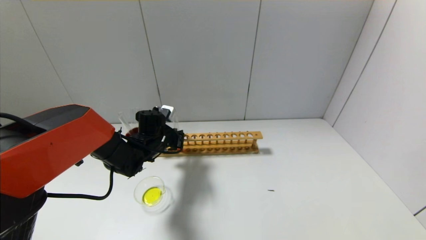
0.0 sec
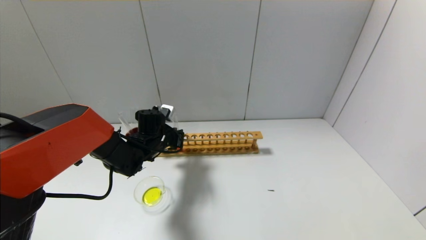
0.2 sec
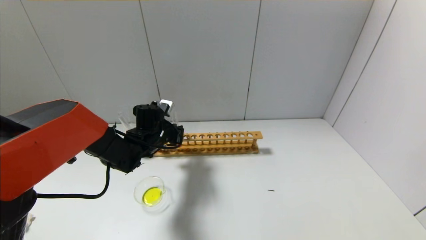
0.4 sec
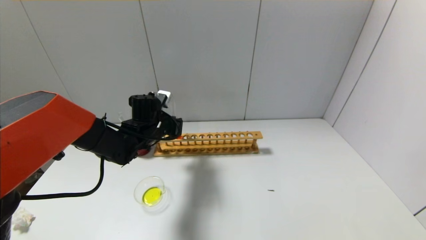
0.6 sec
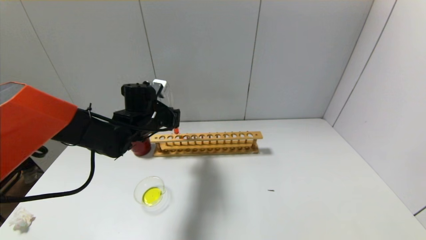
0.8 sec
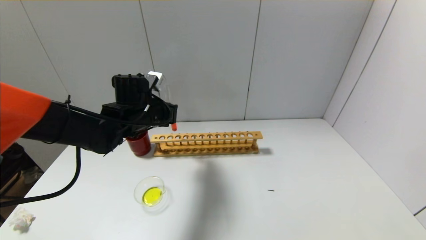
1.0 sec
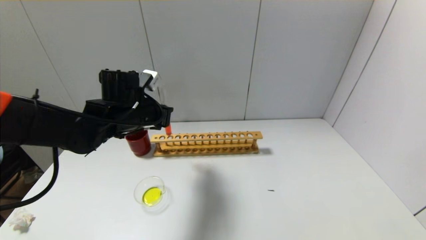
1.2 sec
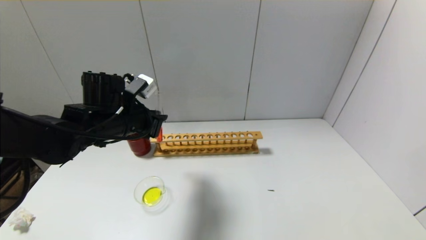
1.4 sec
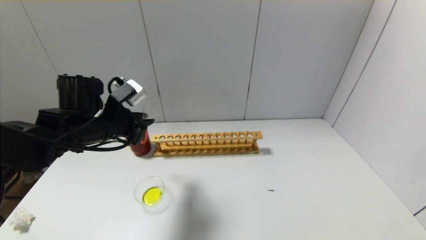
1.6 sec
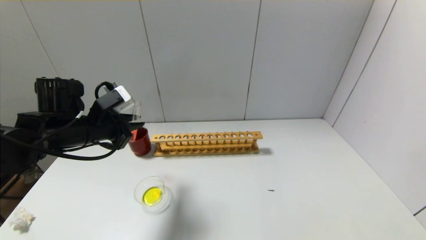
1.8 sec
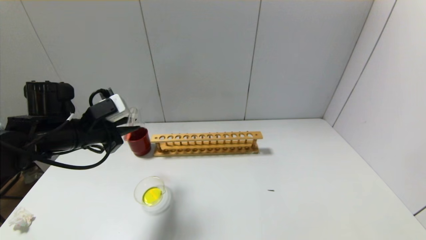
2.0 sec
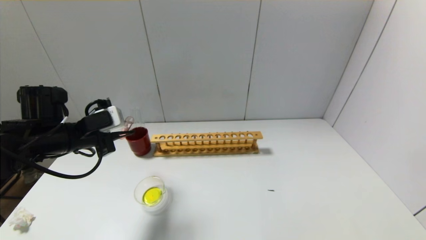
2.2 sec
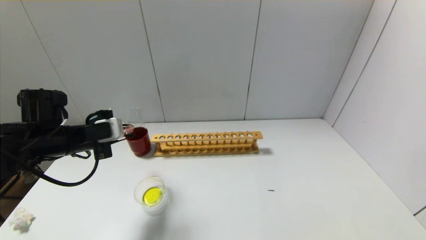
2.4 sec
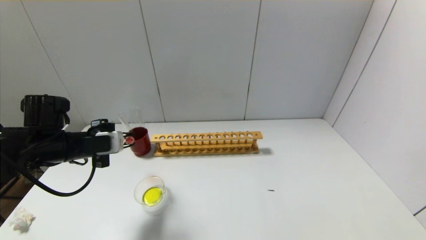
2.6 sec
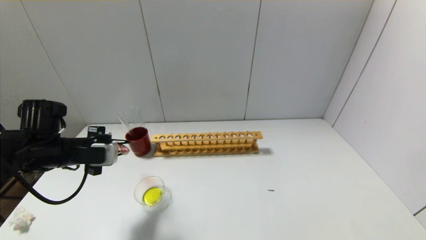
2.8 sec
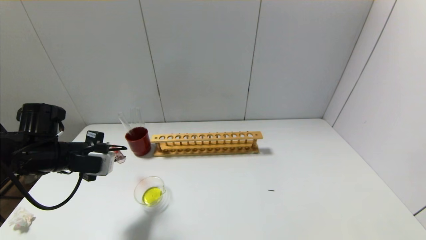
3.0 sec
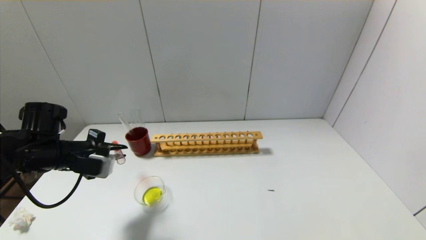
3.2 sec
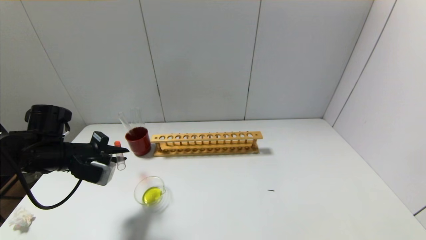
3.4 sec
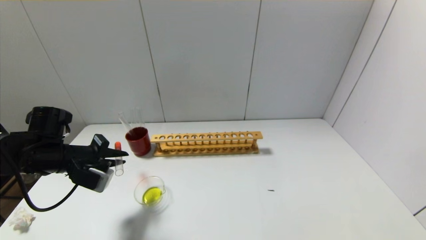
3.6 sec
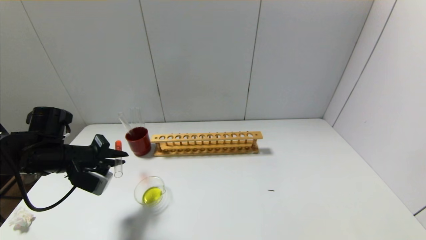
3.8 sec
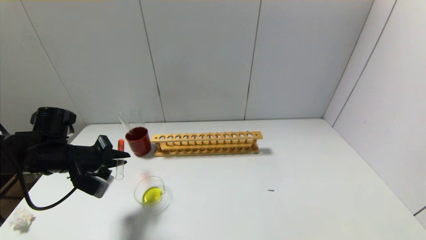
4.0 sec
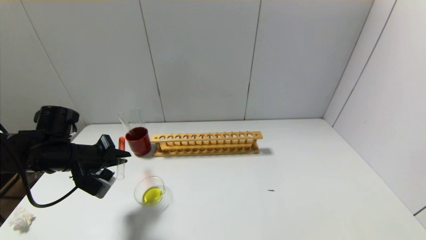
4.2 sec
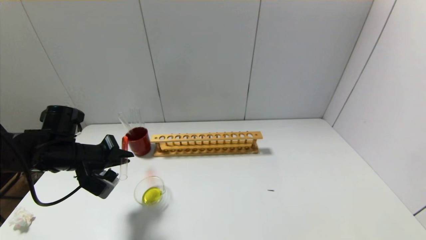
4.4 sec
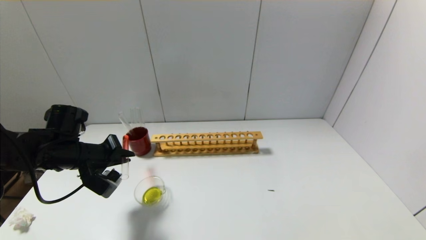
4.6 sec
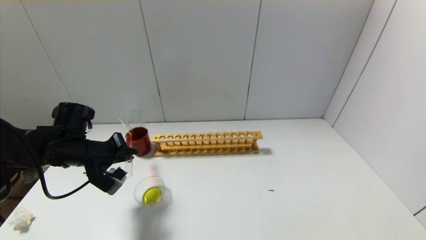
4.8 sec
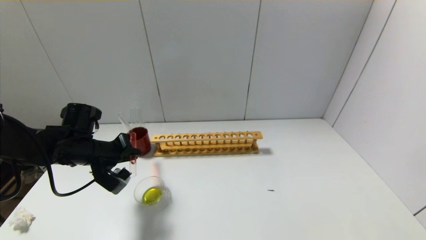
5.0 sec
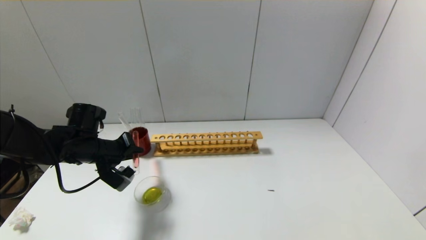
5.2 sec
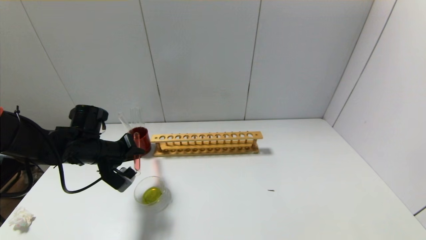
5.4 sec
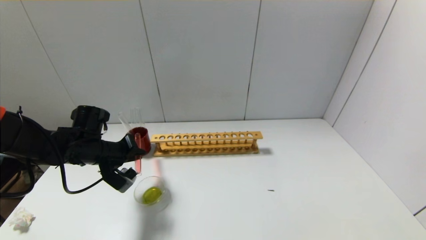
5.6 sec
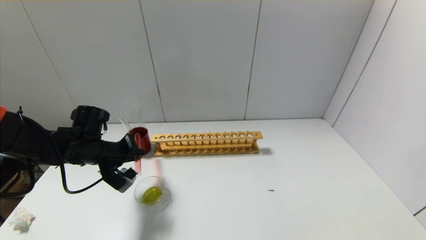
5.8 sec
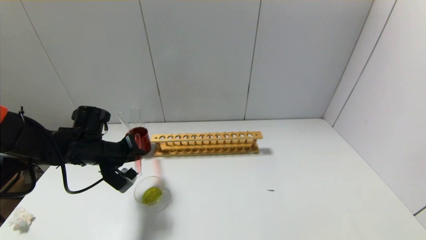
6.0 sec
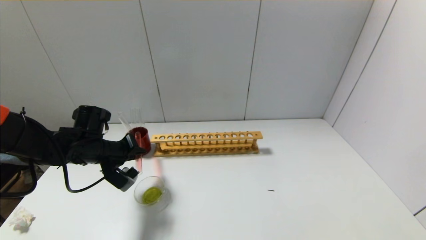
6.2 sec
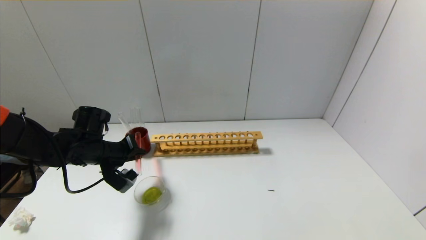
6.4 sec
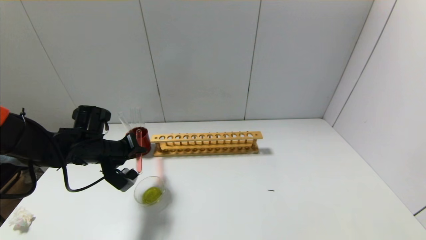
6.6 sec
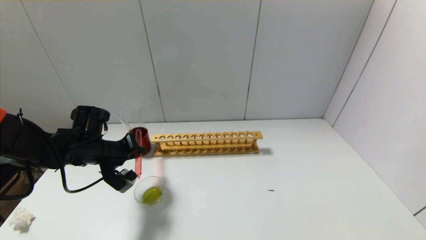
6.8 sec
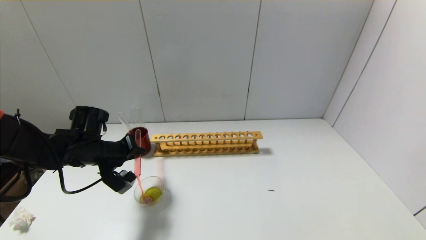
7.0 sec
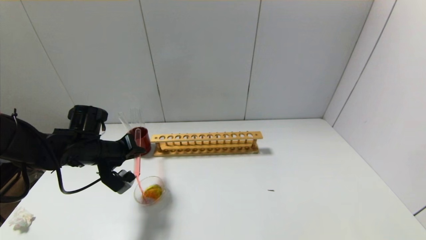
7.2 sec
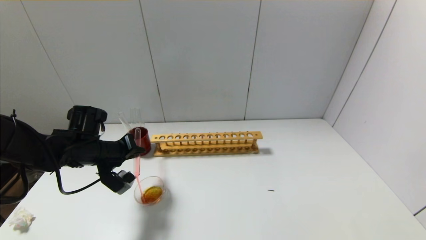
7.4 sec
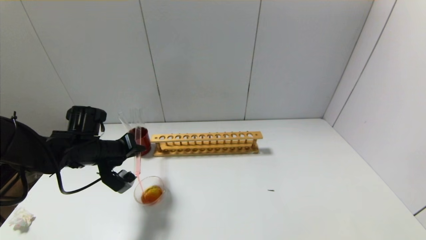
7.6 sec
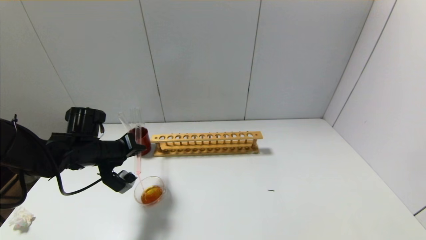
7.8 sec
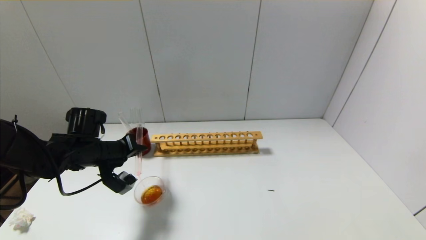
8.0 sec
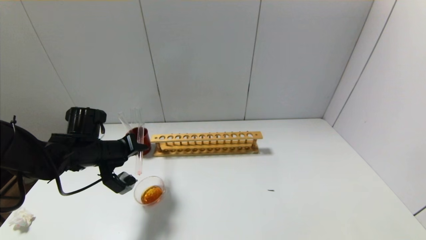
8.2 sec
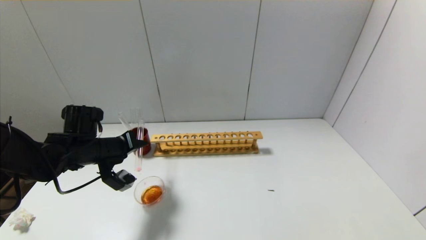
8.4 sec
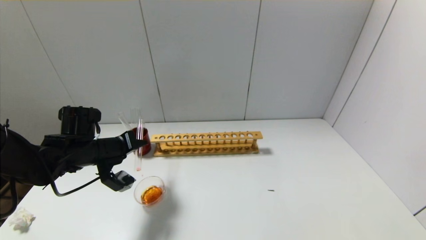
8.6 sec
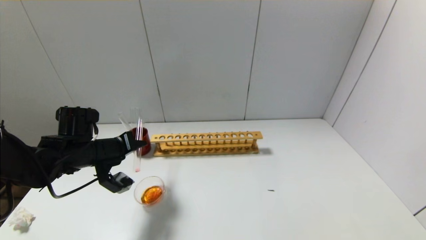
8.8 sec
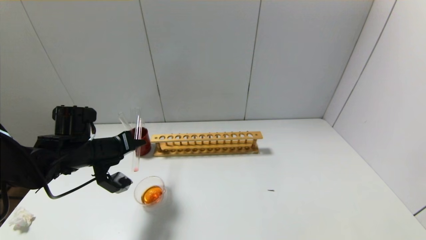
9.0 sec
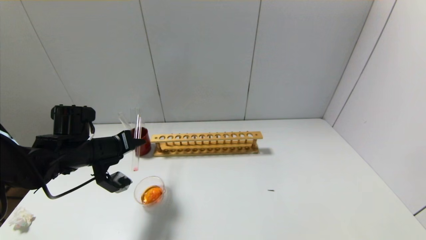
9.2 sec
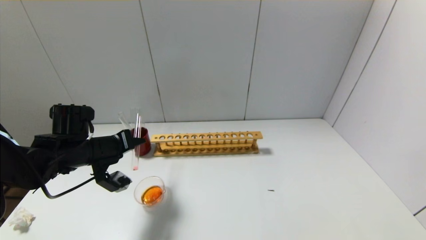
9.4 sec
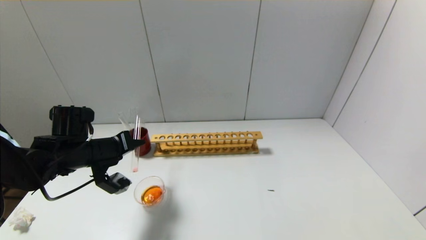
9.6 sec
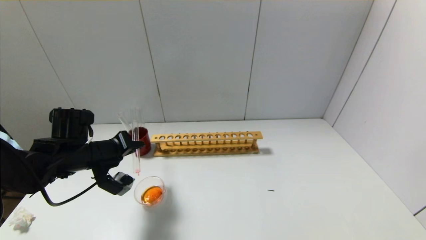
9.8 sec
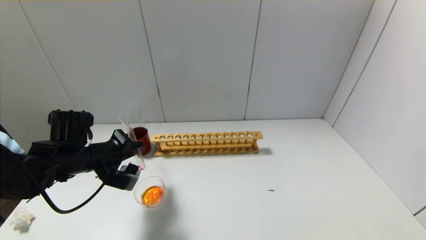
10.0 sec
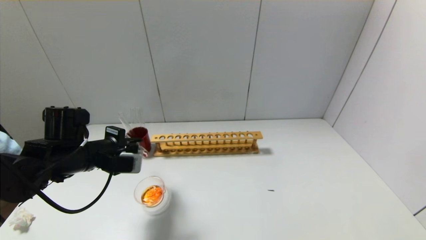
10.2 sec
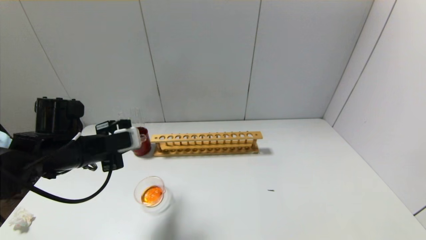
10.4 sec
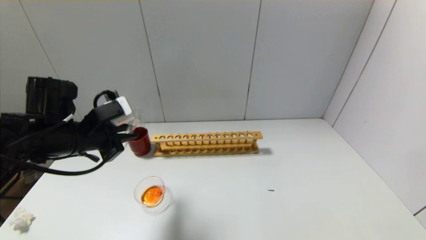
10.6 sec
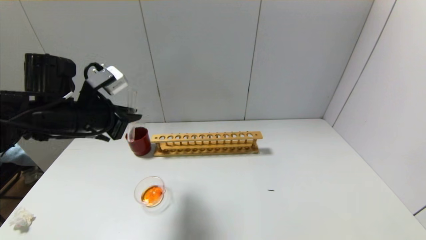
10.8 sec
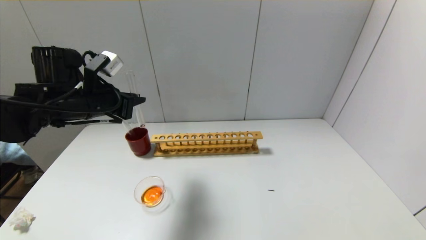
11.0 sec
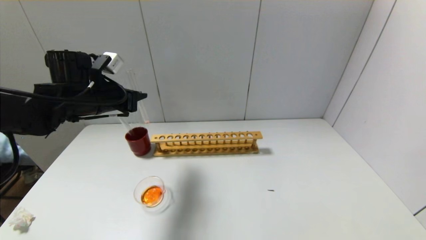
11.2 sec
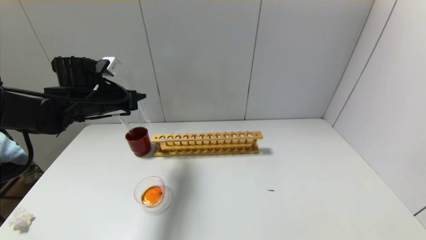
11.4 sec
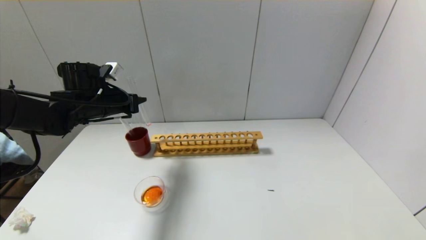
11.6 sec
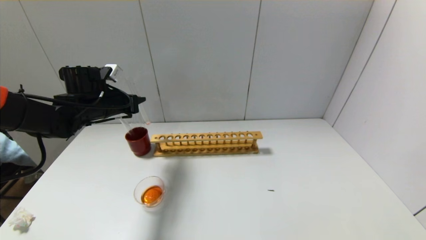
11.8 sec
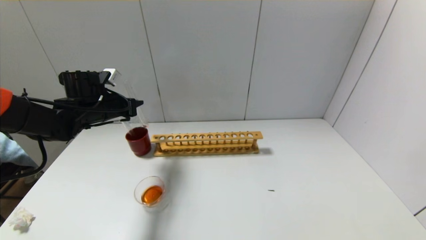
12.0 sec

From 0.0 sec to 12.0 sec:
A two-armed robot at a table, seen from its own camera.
Step, from 0.2 sec to 9.8 sec: Pour the red reagent into the graduated cylinder with the left gripper.
From 0.0 sec to 1.6 sec: The left gripper moves upward, backward and to the left, about 15 cm.
From 1.6 sec to 3.0 sec: The left gripper moves to the left, about 10 cm.
From 4.4 sec to 7.6 sec: The grippers move only a little.
From 7.6 sec to 9.0 sec: The grippers stay close to where they were, moving slightly.
From 10.4 sec to 12.0 sec: The left gripper moves forward, about 15 cm.

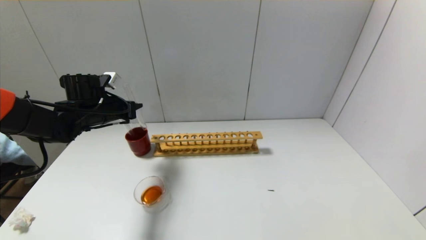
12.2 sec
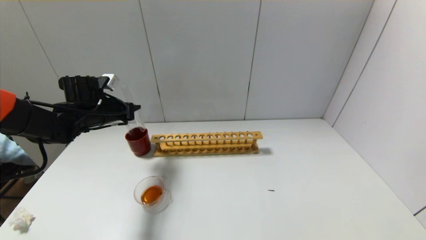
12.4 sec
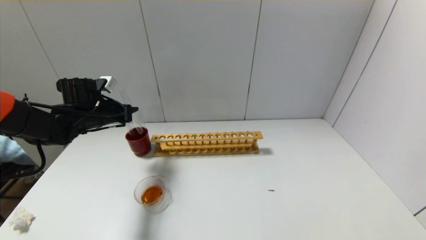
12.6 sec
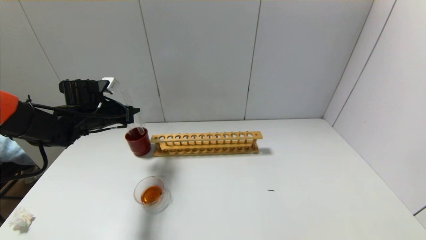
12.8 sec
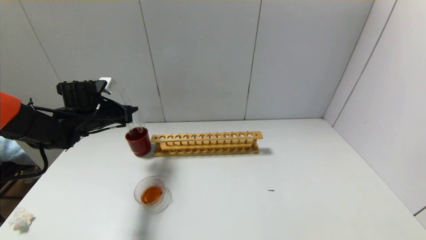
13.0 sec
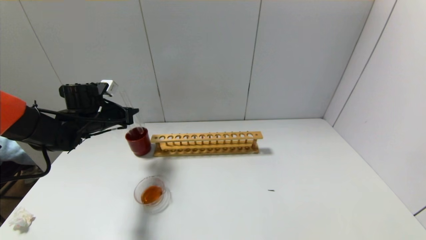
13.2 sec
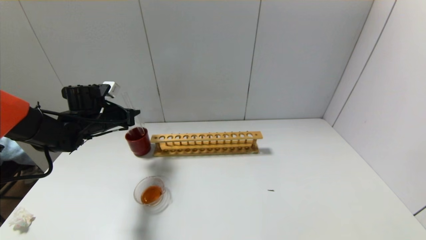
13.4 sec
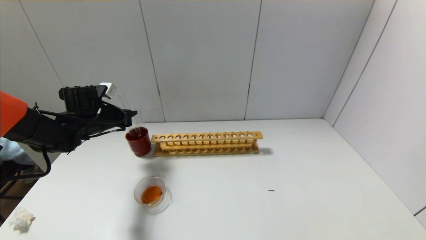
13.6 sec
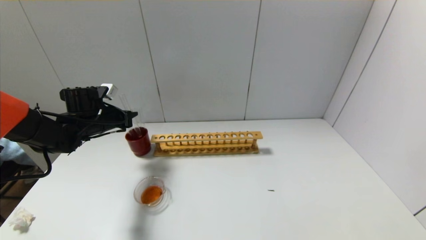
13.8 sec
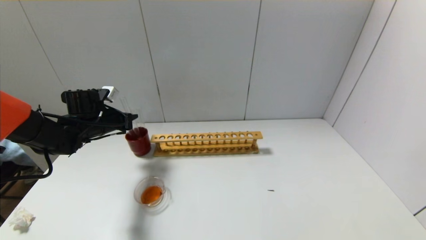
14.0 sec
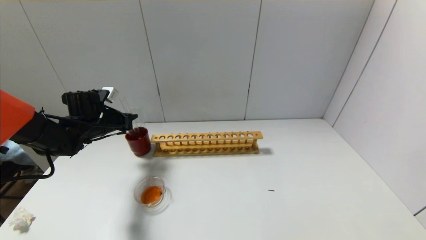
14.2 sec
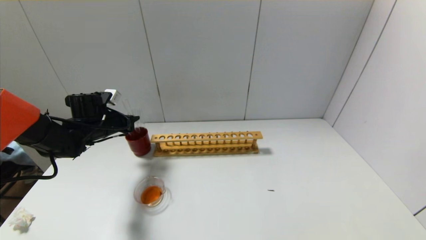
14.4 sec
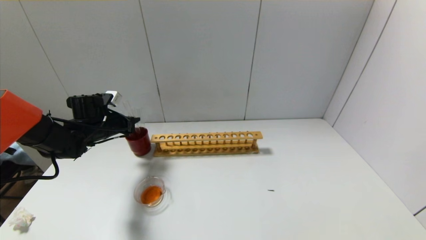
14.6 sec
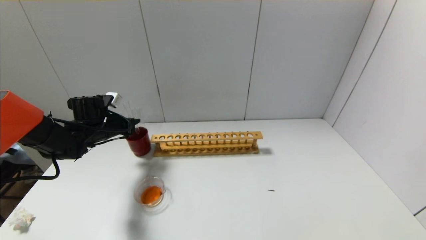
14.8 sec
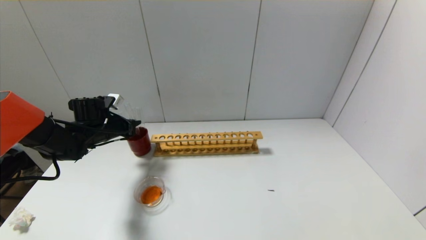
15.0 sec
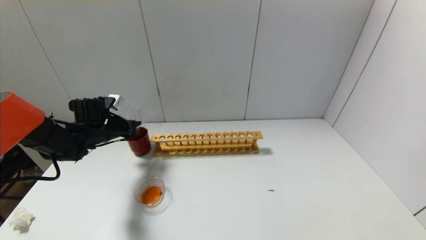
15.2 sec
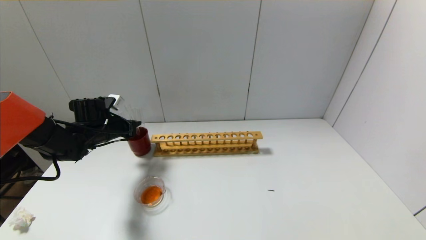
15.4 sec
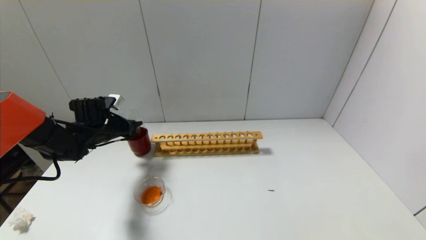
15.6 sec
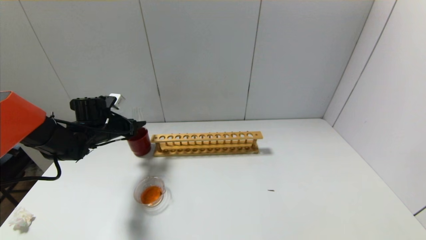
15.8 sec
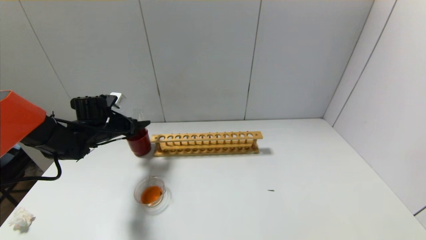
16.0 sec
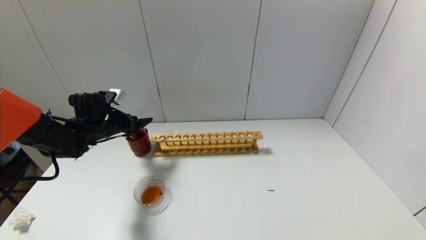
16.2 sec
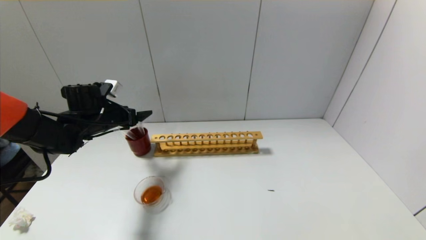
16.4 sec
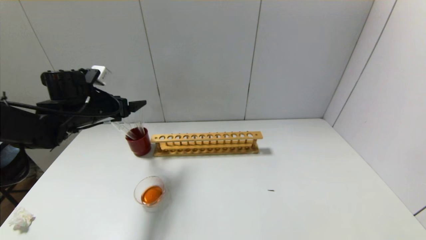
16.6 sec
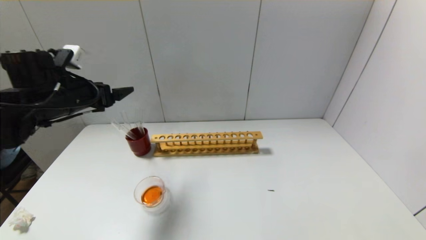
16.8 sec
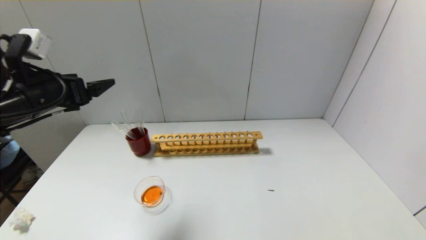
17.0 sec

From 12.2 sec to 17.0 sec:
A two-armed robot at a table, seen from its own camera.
Step, from 12.2 sec to 15.8 sec: Place the test tube into the brown cup with the left gripper.
From 12.2 sec to 13.8 sec: The grippers stay close to where they were, moving slightly.
From 13.8 sec to 15.4 sec: The grippers move only a little.
From 15.4 sec to 17.0 sec: The left gripper travels upward and backward by approximately 20 cm, and opens up.
